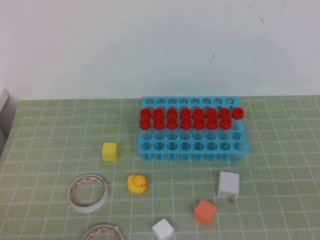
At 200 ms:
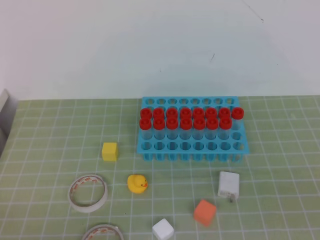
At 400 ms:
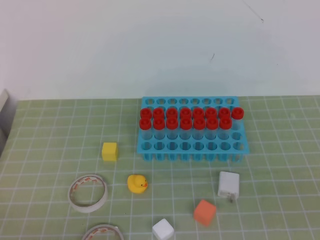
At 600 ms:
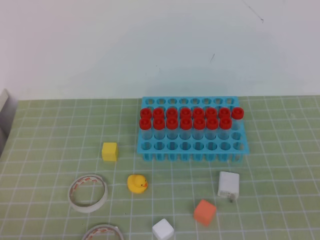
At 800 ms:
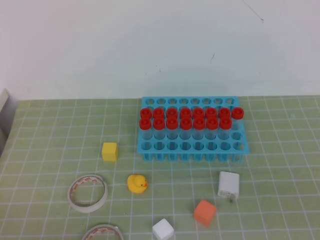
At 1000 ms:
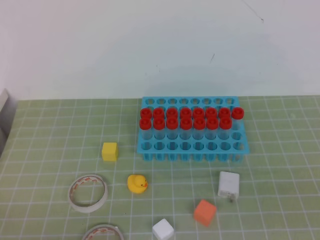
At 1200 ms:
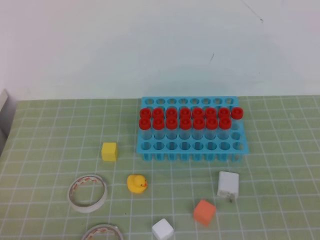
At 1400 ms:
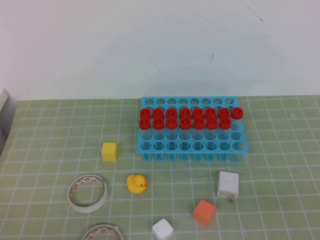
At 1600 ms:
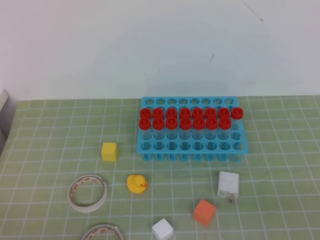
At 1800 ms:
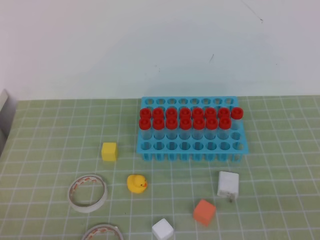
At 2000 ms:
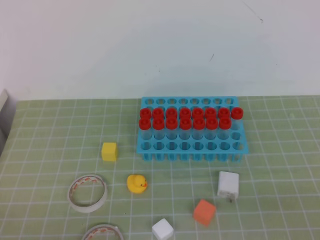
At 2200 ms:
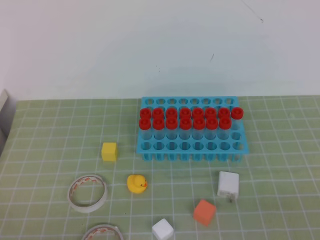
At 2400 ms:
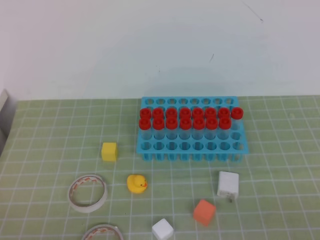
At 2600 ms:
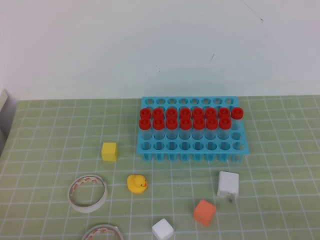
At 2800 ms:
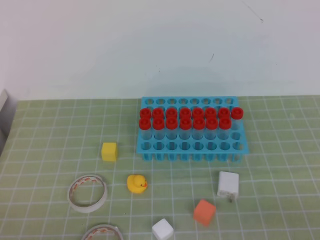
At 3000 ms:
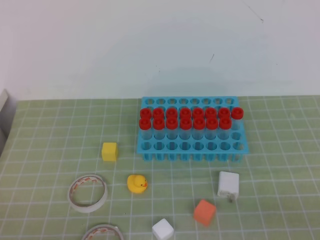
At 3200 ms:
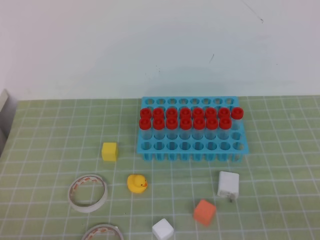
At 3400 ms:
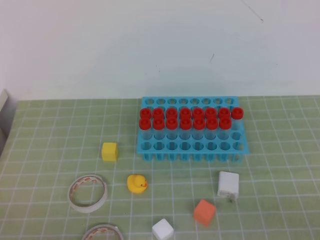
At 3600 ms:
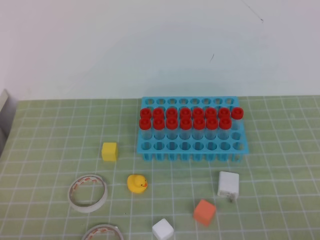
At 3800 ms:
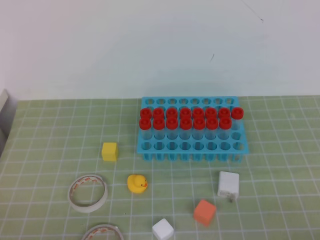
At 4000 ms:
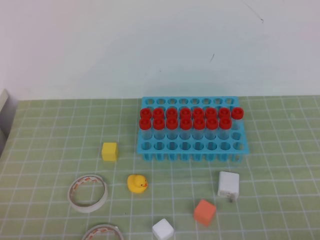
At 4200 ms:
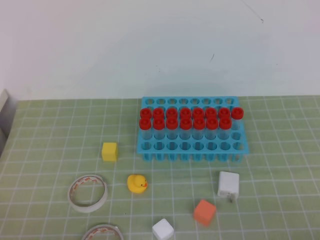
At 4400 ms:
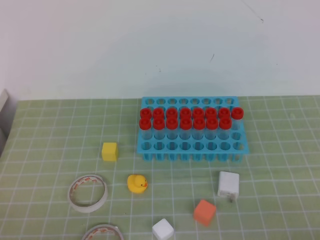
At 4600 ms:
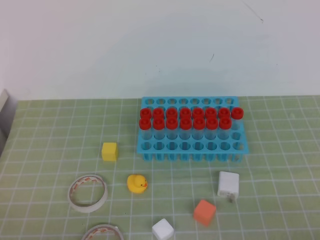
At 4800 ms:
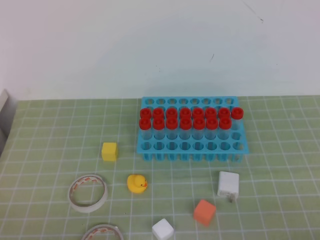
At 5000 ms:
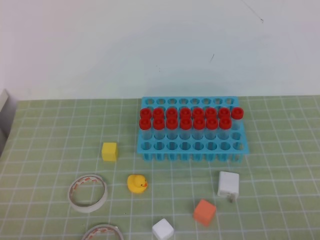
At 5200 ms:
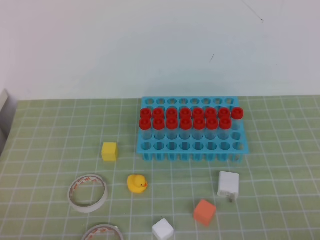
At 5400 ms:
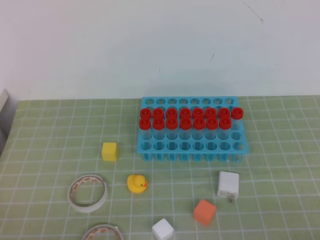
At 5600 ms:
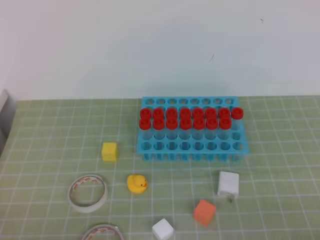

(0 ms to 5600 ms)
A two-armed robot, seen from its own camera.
4200 ms - 5600 ms: Both grippers stay about where they are.

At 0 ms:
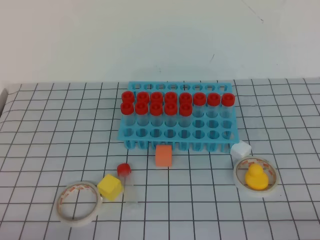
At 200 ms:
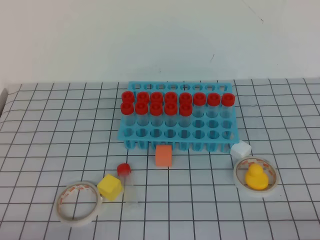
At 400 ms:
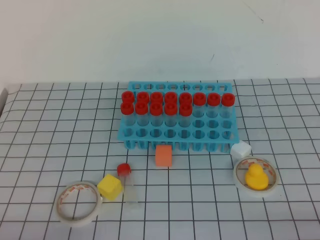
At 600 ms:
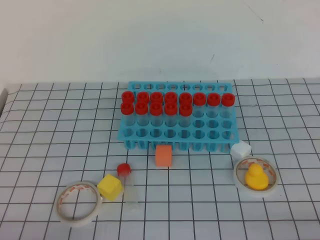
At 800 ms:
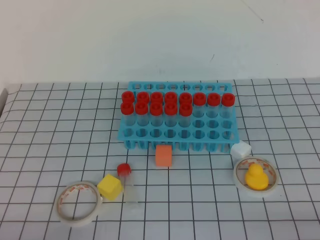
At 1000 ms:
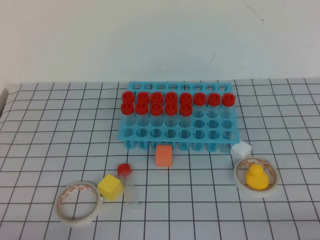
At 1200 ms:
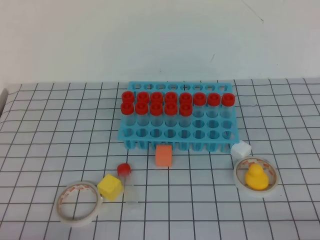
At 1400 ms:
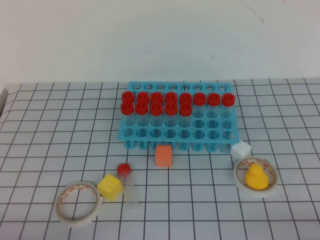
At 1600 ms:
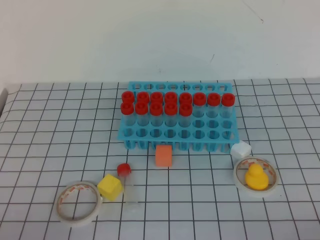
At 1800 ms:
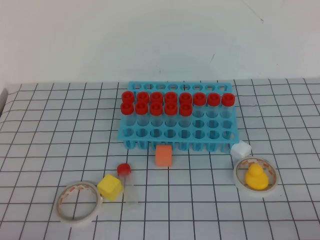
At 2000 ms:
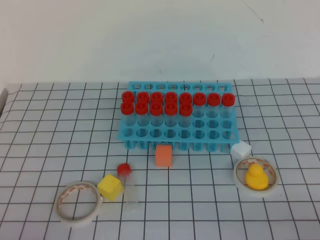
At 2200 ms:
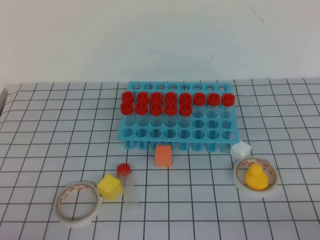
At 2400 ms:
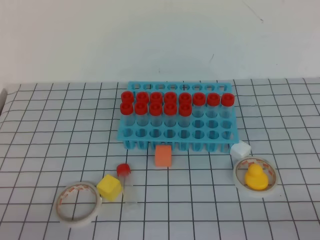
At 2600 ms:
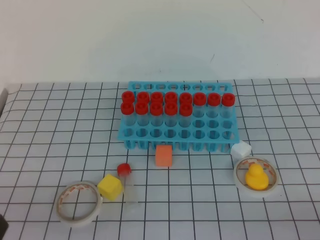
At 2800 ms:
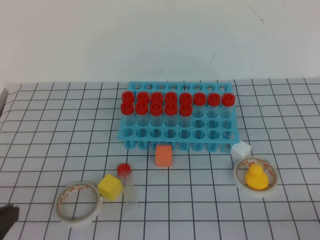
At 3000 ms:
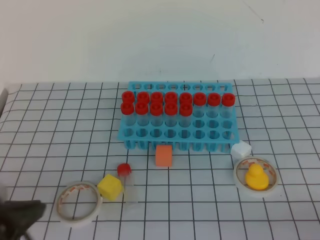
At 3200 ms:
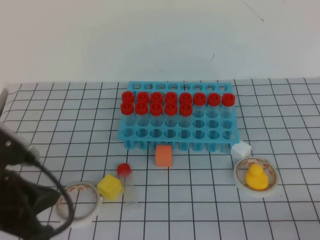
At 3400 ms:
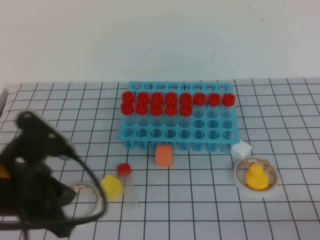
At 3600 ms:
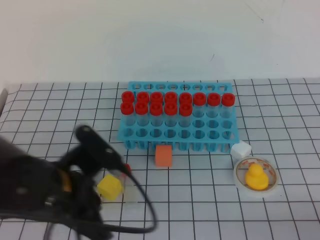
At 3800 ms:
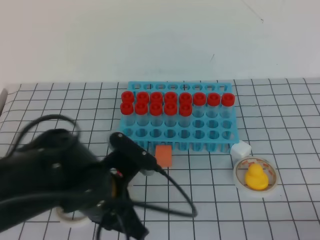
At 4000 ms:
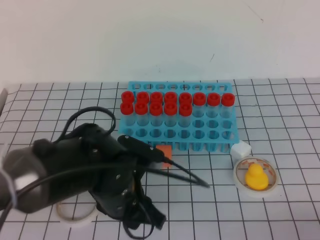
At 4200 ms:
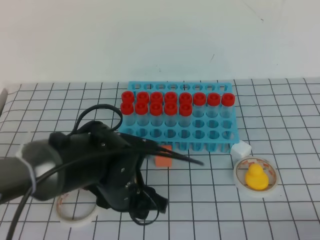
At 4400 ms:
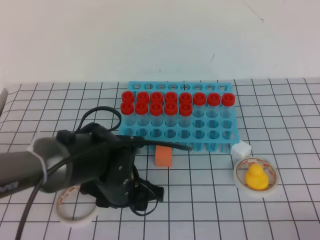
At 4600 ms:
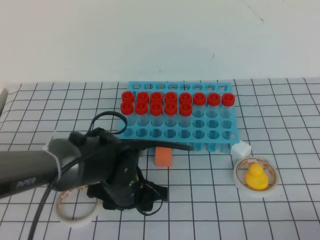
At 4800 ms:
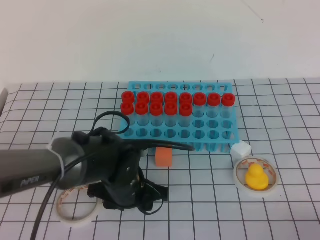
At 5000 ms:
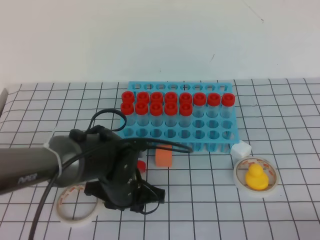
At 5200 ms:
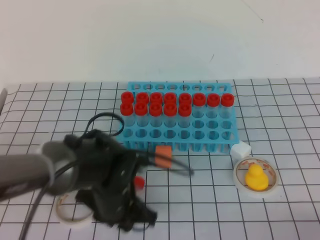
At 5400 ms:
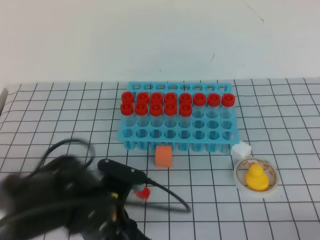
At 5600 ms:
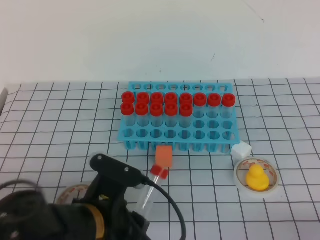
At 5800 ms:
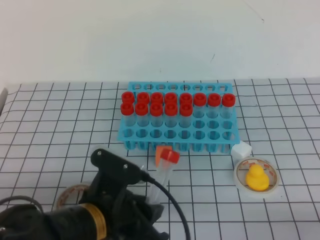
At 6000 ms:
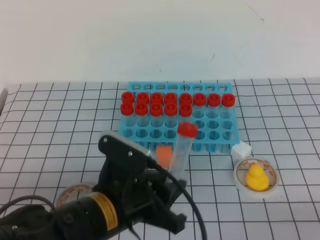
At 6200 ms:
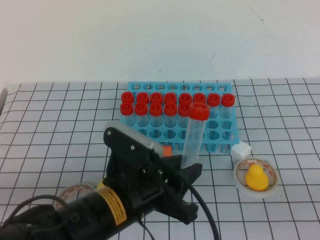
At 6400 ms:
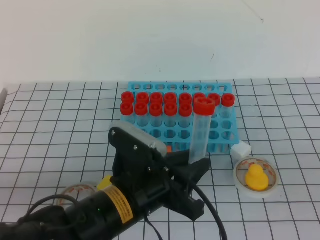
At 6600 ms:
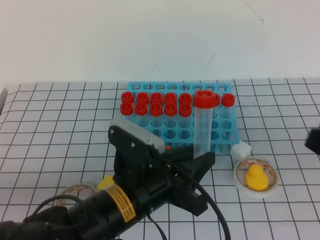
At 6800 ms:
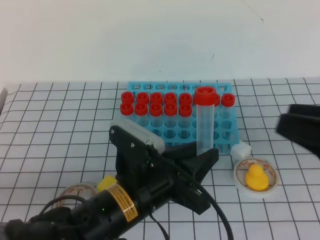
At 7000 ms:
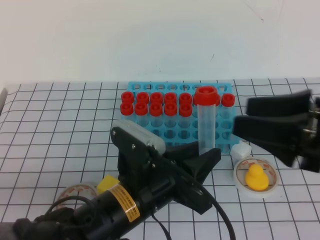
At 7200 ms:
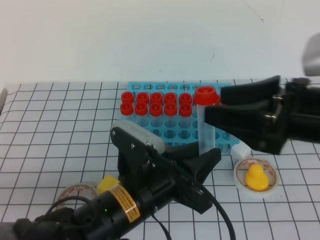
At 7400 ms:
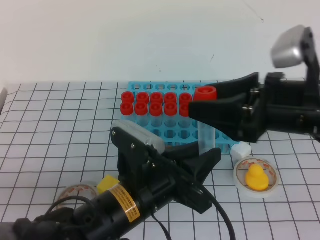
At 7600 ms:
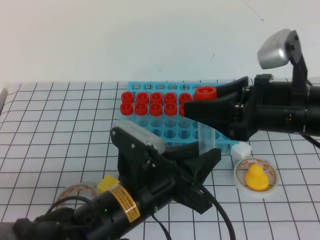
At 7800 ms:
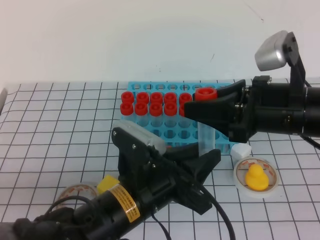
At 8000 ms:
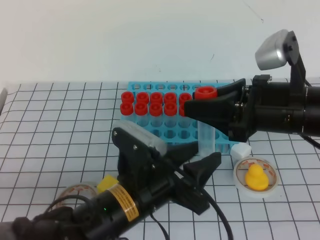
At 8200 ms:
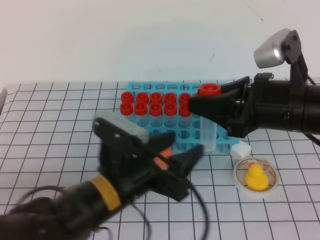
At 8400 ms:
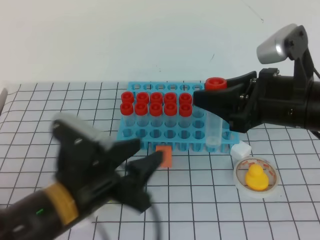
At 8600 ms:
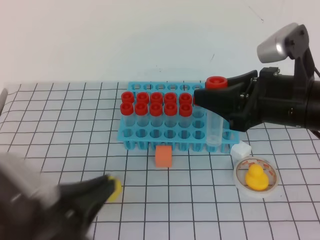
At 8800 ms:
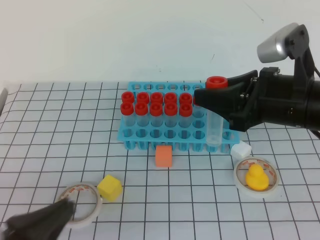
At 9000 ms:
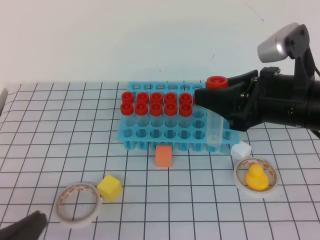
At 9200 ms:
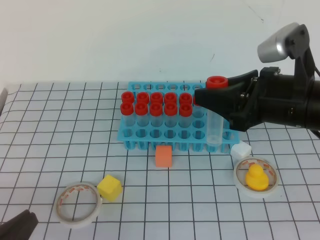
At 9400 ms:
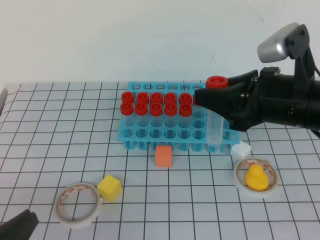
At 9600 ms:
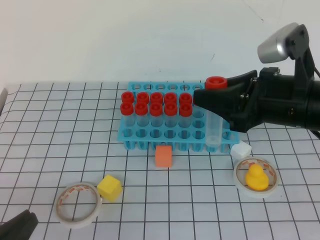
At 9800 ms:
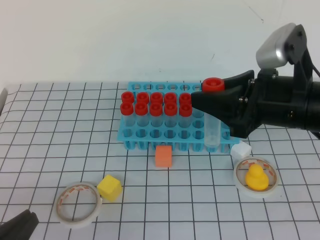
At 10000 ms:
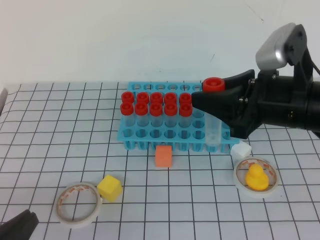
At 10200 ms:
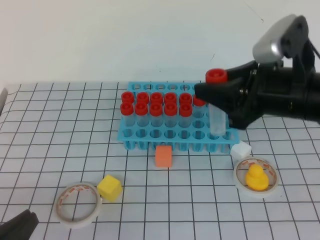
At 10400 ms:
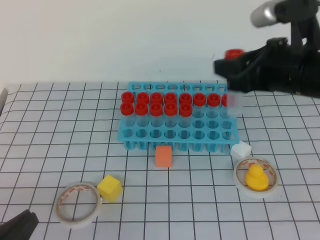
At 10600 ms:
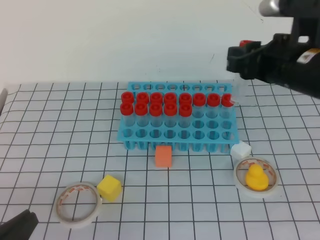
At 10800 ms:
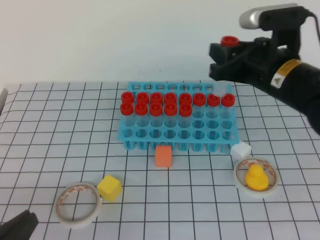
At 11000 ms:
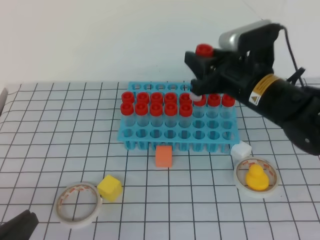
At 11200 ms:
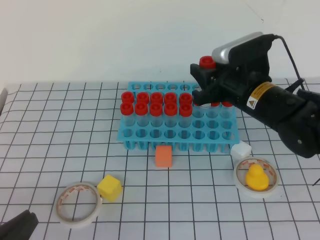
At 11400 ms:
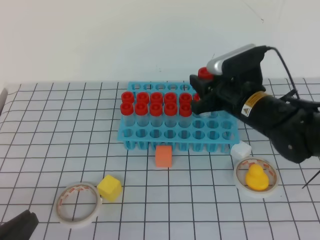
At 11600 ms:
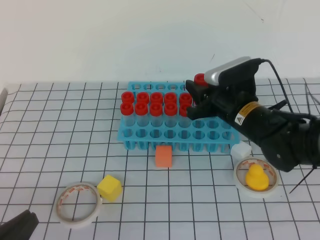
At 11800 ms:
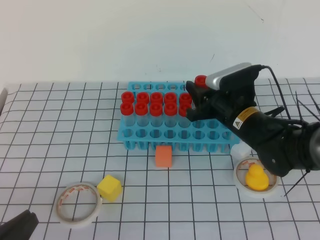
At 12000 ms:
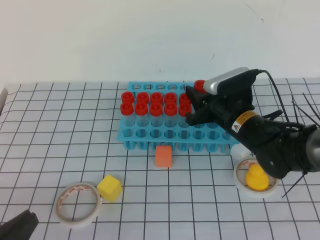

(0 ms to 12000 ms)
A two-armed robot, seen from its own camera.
1600 ms - 3000 ms: The left gripper moves upward and forward, about 10 cm.
3000 ms - 4400 ms: The left gripper heads forward, to the right and downward, covering about 25 cm, and opens.
4400 ms - 6000 ms: The left gripper is displaced backward and upward by roughly 10 cm, and closes.
6000 ms - 7600 ms: The right gripper travels forward, to the left and upward by roughly 25 cm, and opens up.
7600 ms - 9000 ms: The left gripper shifts about 20 cm to the left and backward, and closes up.
9000 ms - 10400 ms: The grippers stay close to where they were, moving slightly.
10400 ms - 12000 ms: The right gripper heads downward and forward, covering some 15 cm.

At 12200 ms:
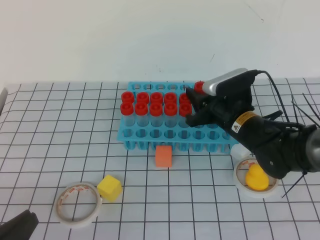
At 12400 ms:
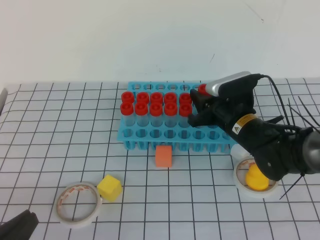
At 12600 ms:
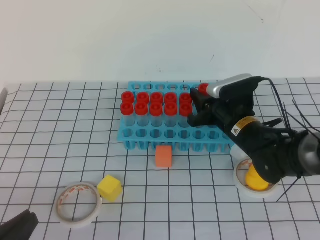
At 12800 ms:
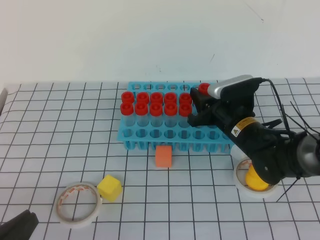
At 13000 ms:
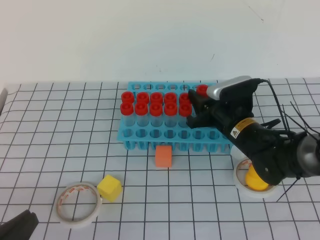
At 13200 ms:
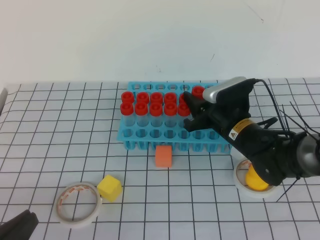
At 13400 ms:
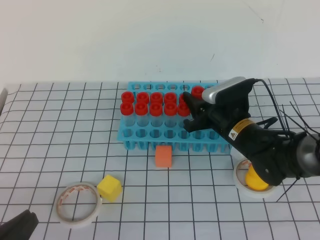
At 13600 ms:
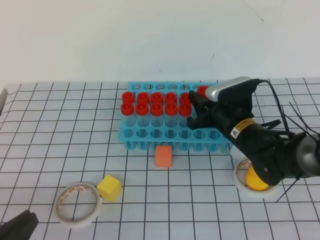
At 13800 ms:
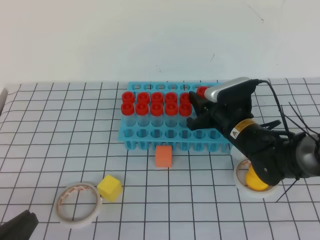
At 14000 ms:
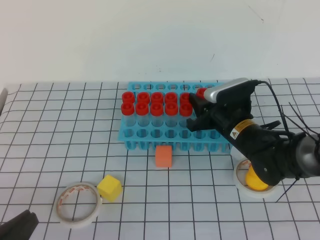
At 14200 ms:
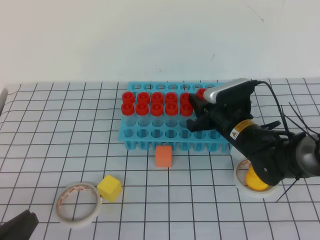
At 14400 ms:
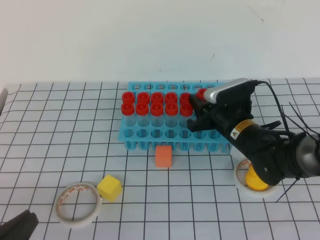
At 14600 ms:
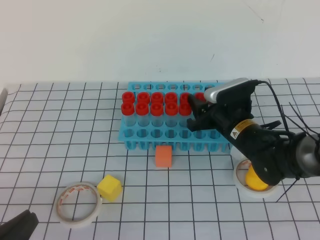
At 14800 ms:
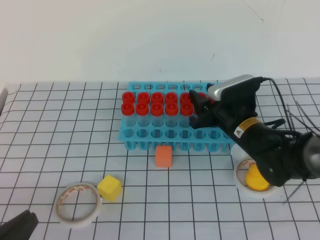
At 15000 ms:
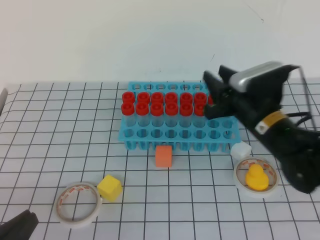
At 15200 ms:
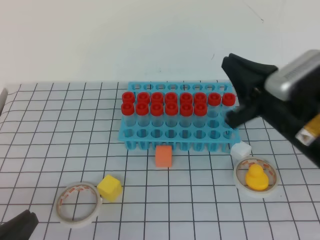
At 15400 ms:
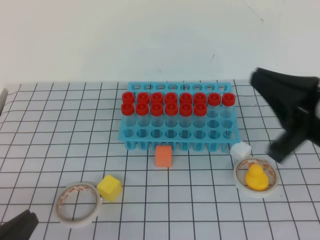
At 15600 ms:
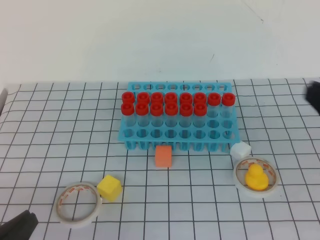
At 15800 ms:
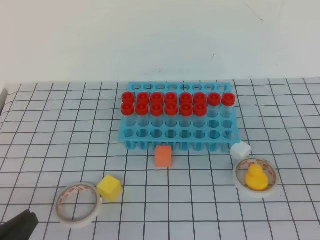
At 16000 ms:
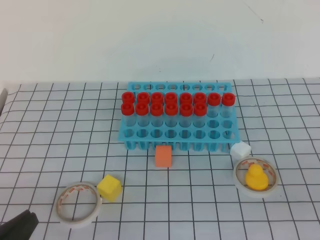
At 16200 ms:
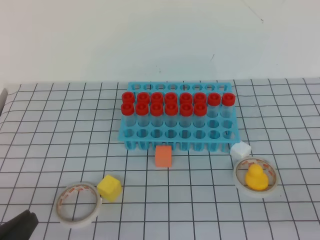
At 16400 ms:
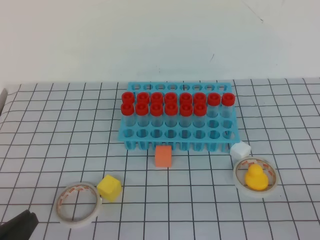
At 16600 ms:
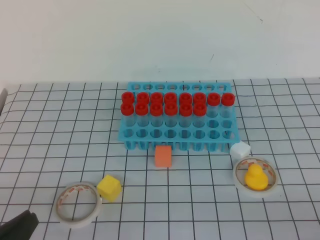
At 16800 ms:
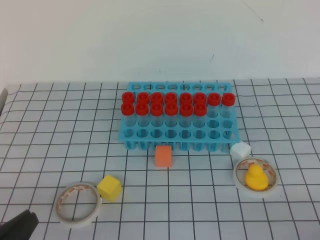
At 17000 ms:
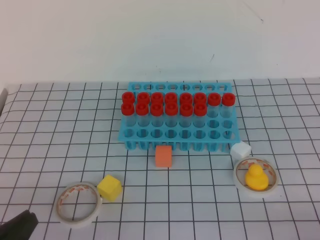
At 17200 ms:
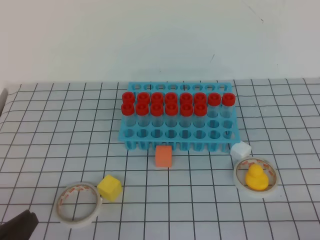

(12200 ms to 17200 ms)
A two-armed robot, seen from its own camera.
12200 ms - 13800 ms: The grippers move only a little.
13800 ms - 15600 ms: The right gripper goes about 30 cm backward, upward and to the right, and closes its fingers.
15600 ms - 17200 ms: The right gripper goes approximately 20 cm downward, to the right and backward.
